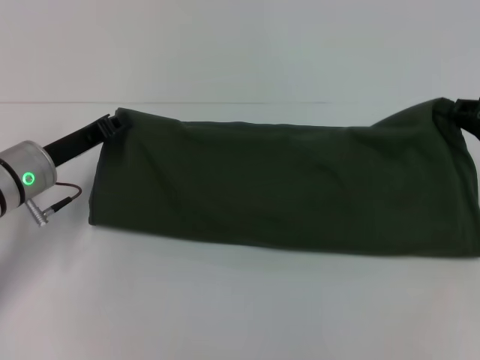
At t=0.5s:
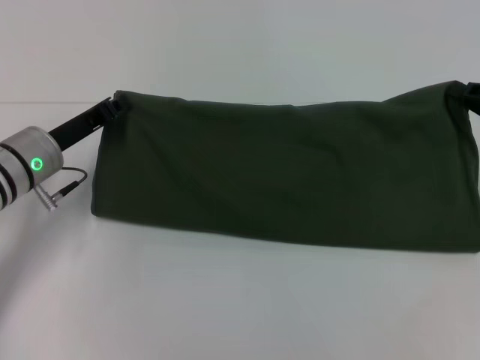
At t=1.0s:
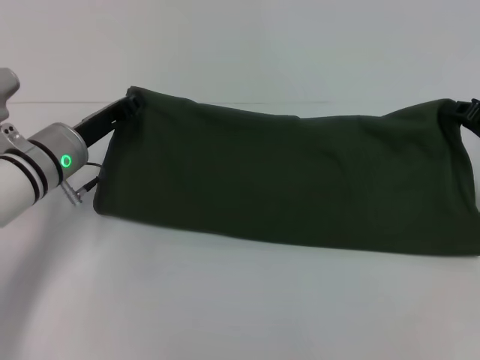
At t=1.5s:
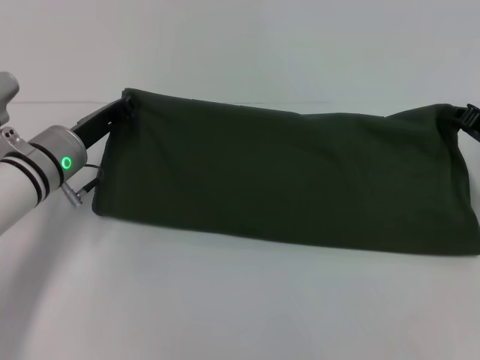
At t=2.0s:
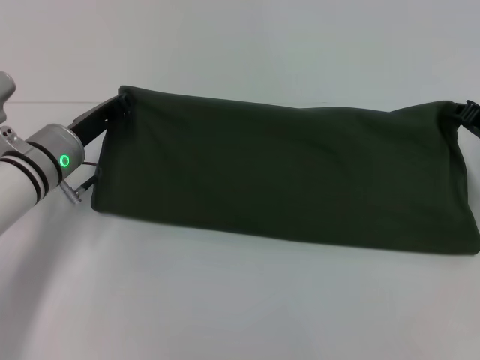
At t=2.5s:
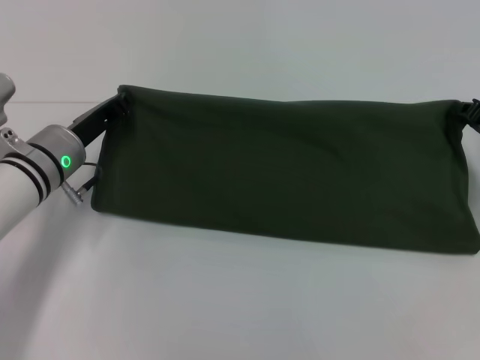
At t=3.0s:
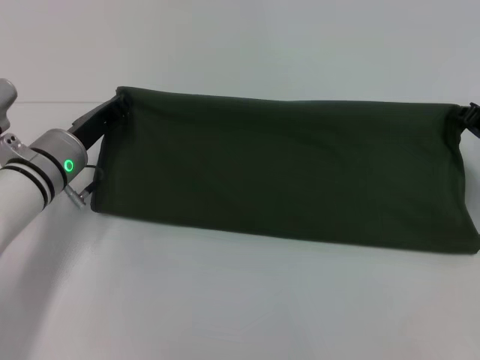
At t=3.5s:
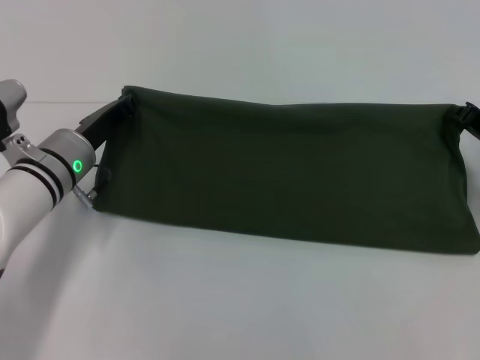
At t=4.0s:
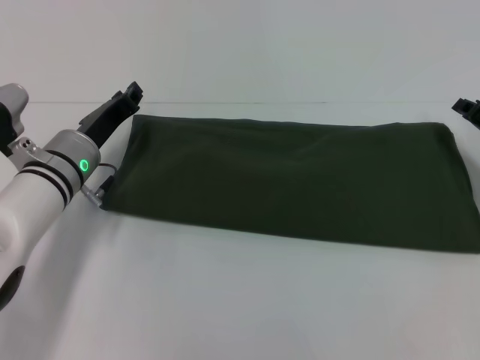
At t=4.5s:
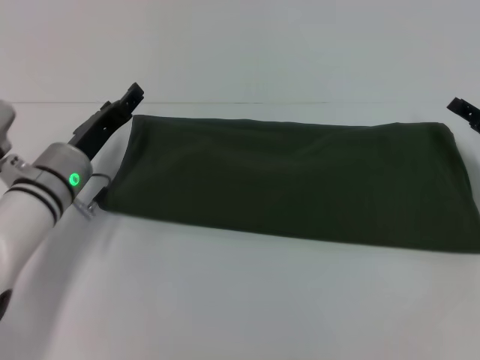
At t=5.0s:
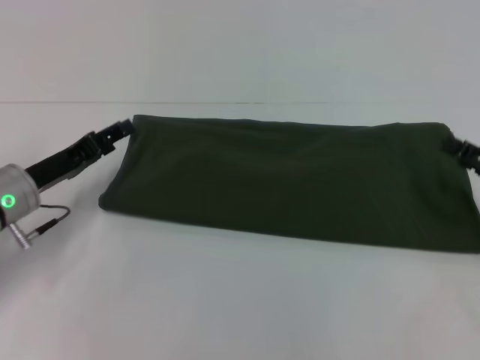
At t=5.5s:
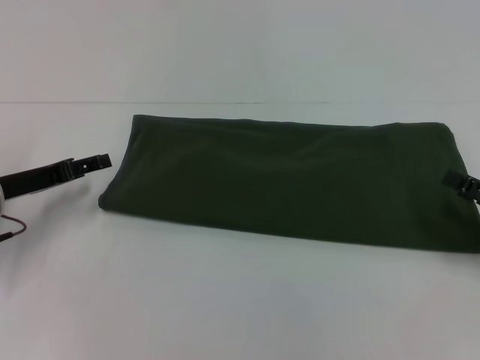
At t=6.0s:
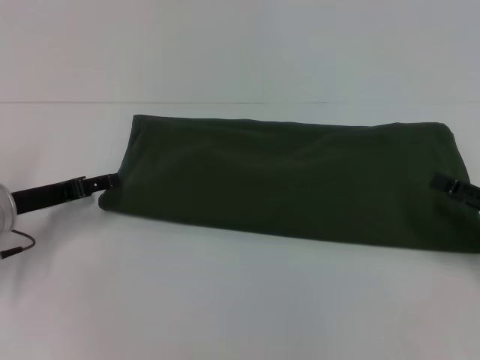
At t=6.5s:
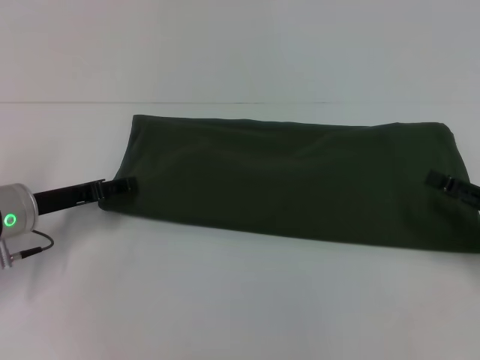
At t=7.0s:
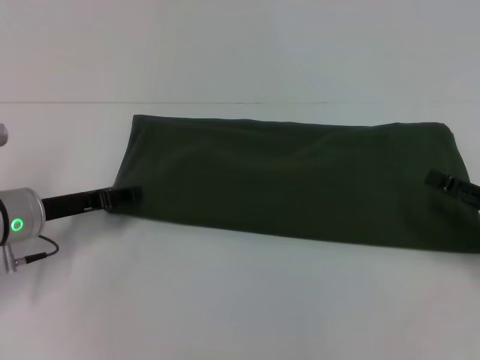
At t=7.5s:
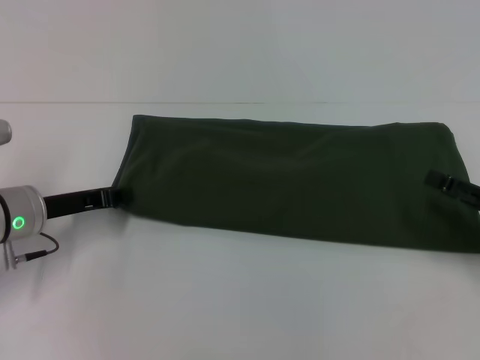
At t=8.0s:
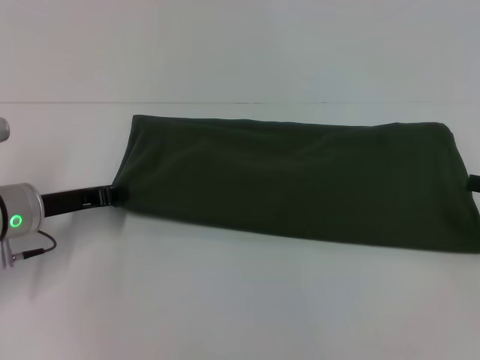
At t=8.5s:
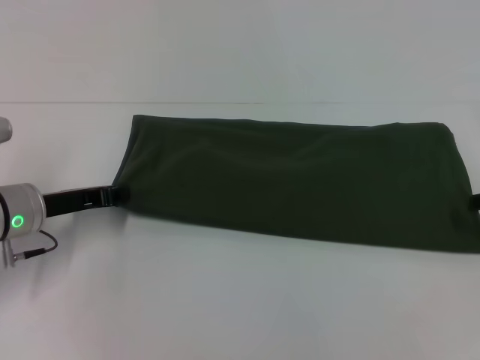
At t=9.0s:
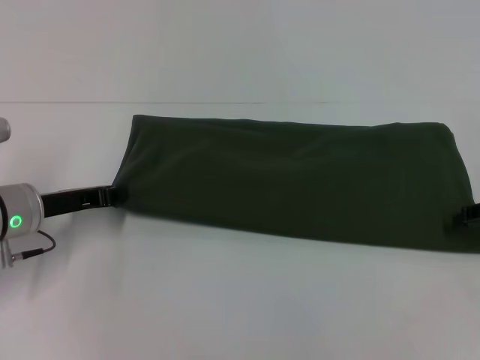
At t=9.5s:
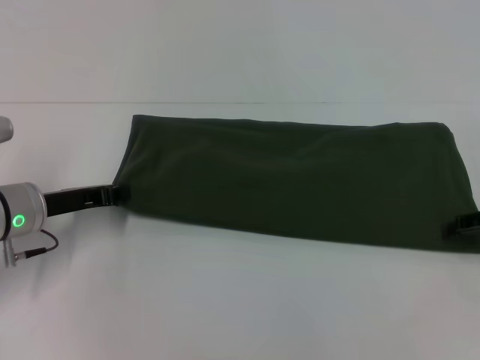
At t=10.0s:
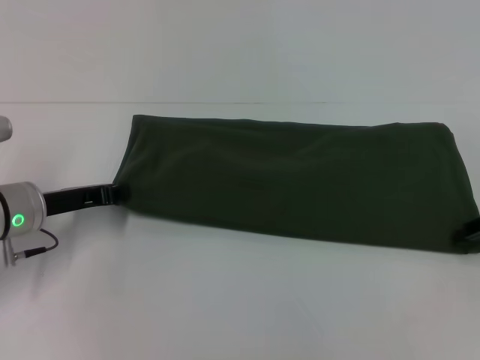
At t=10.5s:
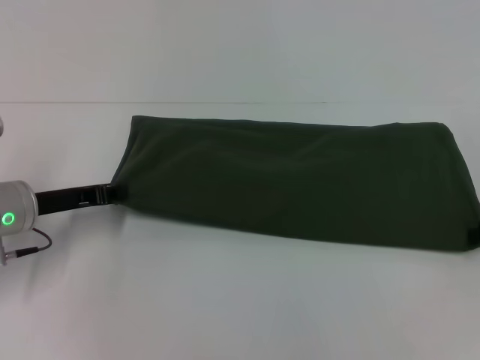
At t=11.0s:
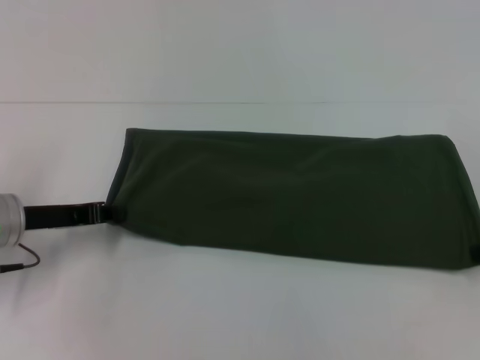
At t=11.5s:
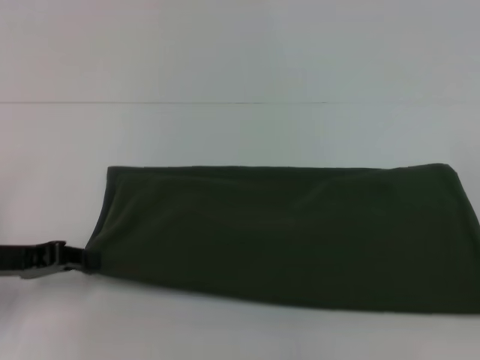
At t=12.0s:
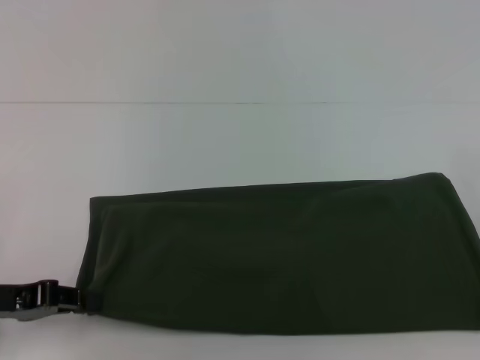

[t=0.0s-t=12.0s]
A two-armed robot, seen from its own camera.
Step, t=0.0s to t=4.0s: Fold the clothes with your right hand.
t=0.0s to t=2.0s: There are only small adjustments of the grippers.
t=2.0s to t=4.0s: There are only small adjustments of the grippers.
t=4.0s to t=6.0s: The right gripper goes about 10 cm backward, and opens its fingers. The left gripper shifts some 10 cm to the left, and opens.
t=6.0s to t=8.0s: The left gripper closes up.
t=10.0s to t=12.0s: The right gripper closes its fingers. The left gripper heads backward and to the left, covering approximately 10 cm.

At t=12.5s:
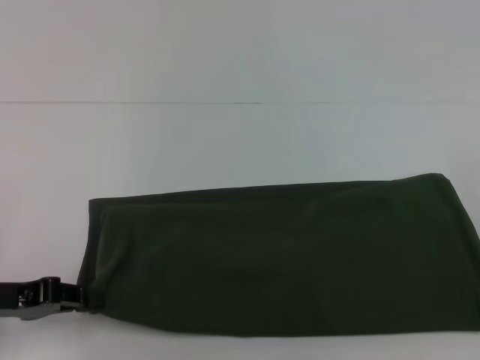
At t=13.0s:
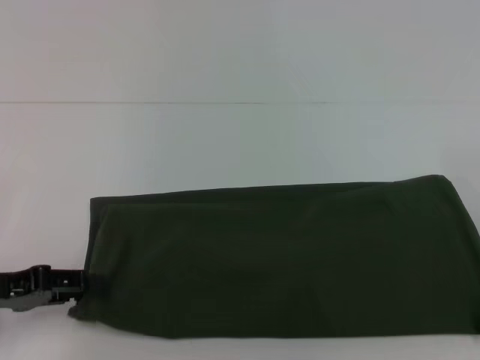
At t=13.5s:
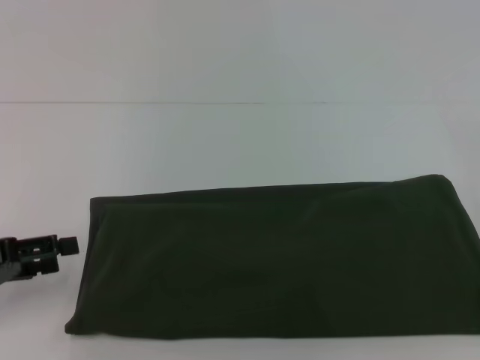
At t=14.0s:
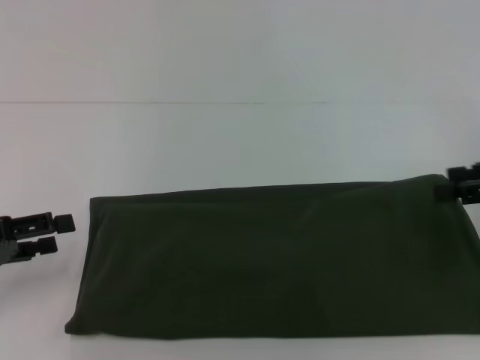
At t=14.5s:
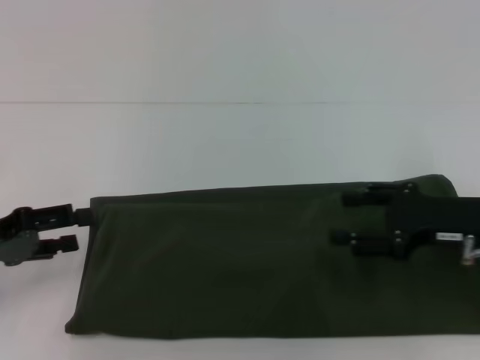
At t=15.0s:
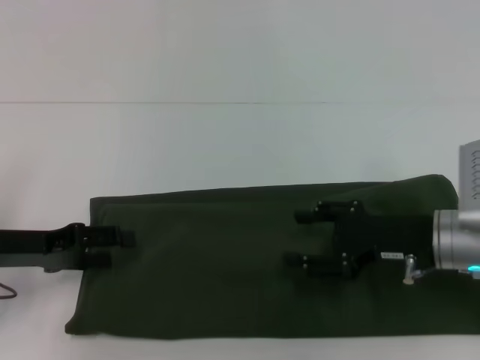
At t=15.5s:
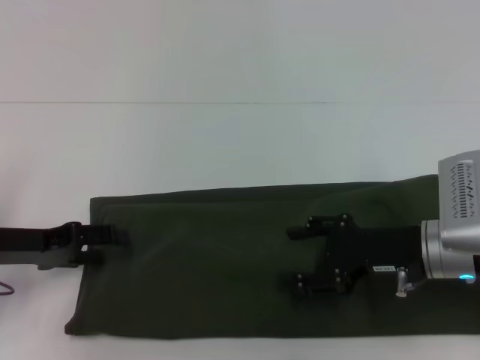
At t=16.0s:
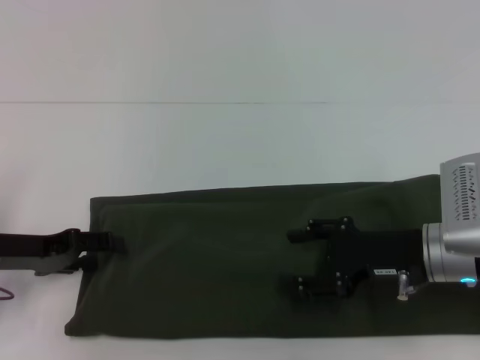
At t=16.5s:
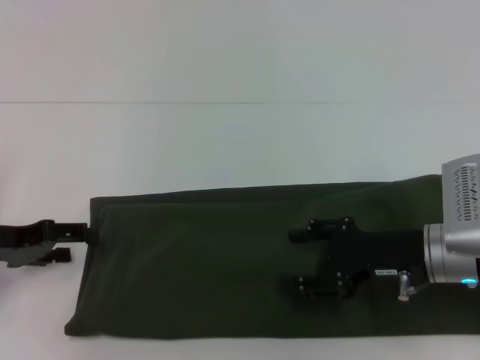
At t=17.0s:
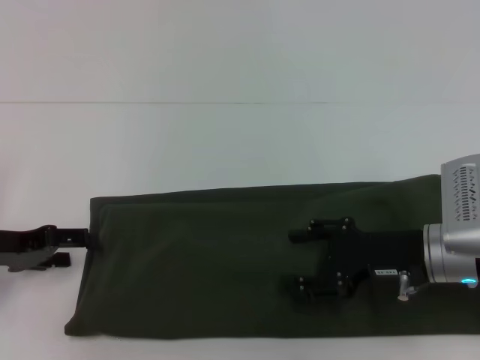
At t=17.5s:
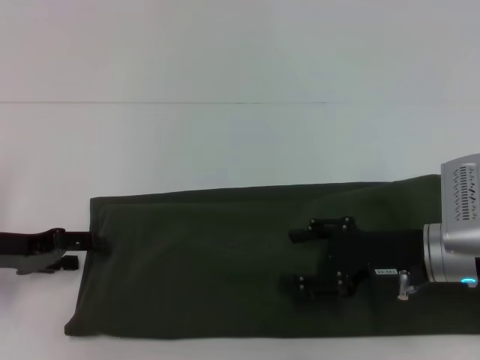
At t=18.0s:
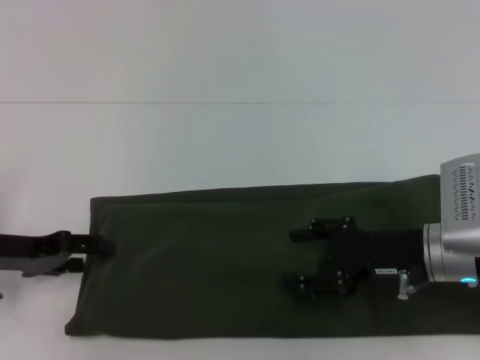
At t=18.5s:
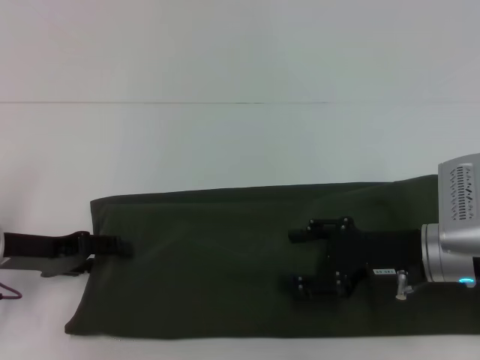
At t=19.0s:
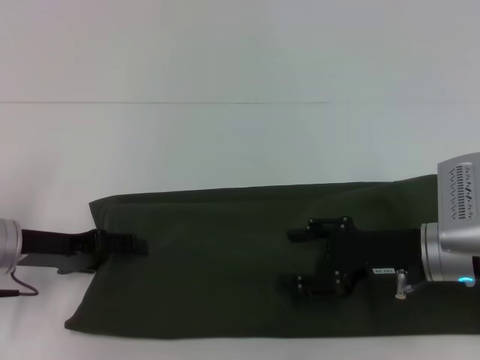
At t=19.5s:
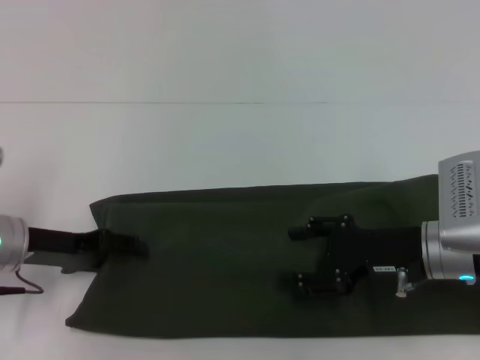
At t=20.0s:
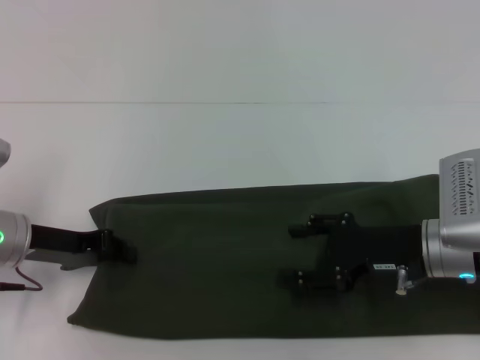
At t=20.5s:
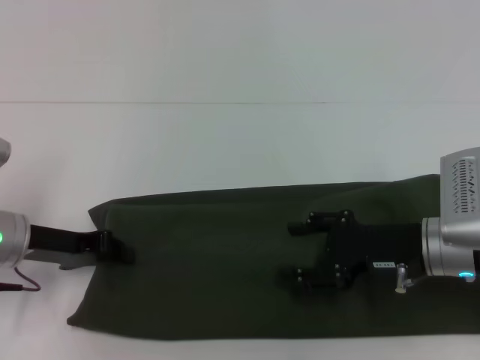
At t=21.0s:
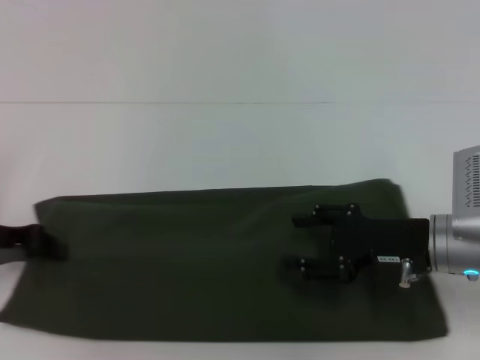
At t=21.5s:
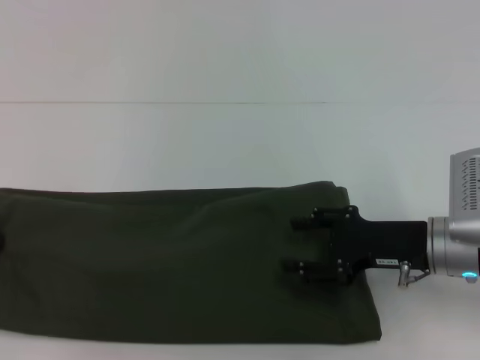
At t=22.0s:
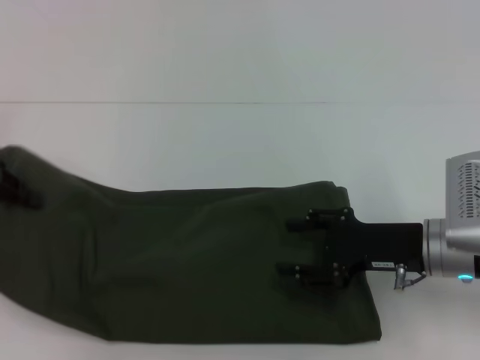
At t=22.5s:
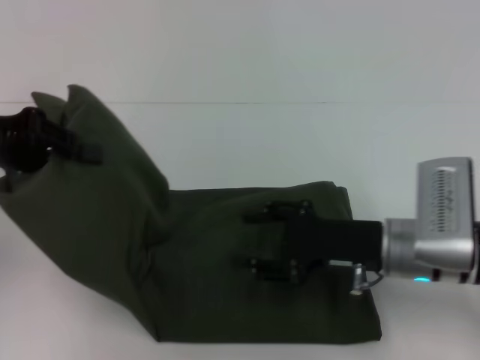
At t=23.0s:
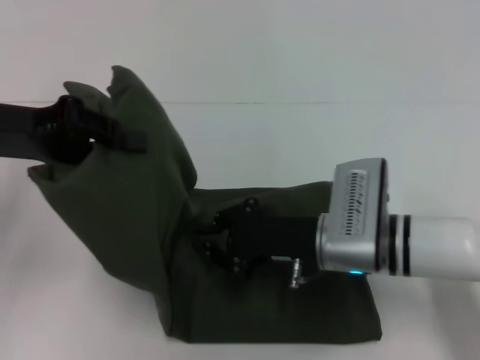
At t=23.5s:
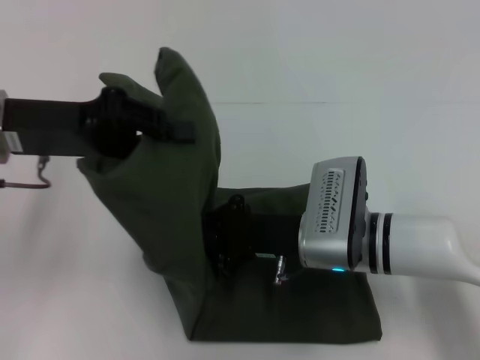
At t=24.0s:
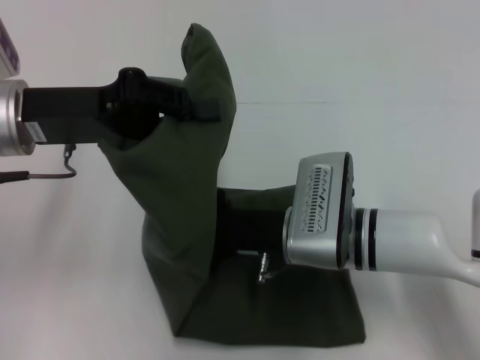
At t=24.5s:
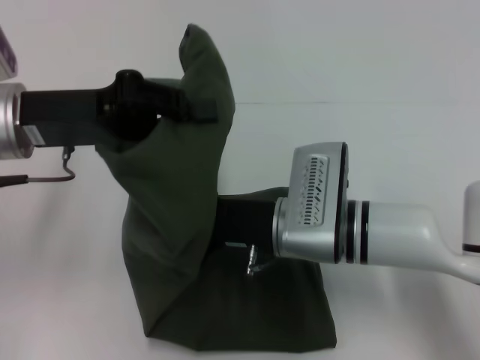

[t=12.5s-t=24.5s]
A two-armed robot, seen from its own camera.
t=12.5s to t=14.5s: The left gripper opens its fingers; the right gripper is displaced to the left by approximately 10 cm, and opens up.
t=14.5s to t=16.5s: The right gripper goes about 5 cm to the left.
t=16.5s to t=18.5s: The grippers make only small movements.
t=18.5s to t=20.5s: The left gripper closes up.
t=20.5s to t=22.5s: The left gripper shifts about 15 cm upward.
t=22.5s to t=24.5s: The right gripper moves to the left, some 10 cm, and closes up. The left gripper heads to the right, covering approximately 10 cm.

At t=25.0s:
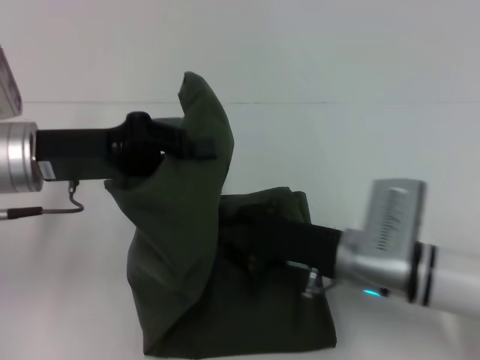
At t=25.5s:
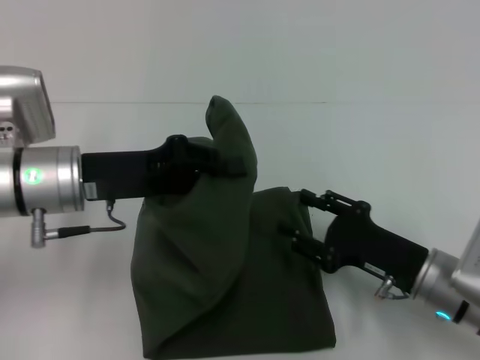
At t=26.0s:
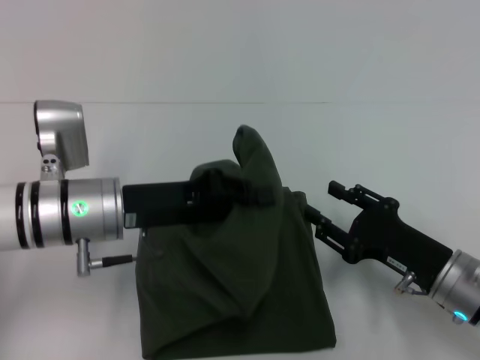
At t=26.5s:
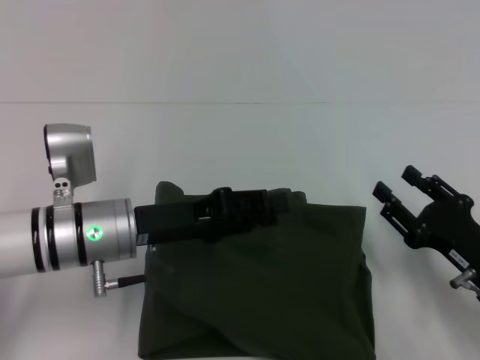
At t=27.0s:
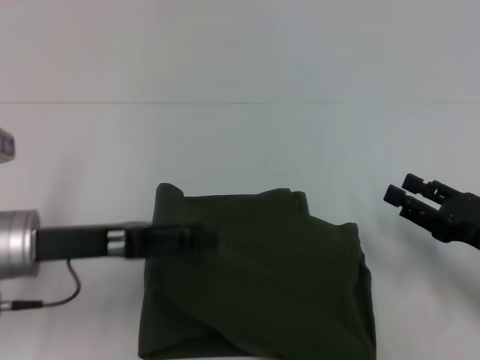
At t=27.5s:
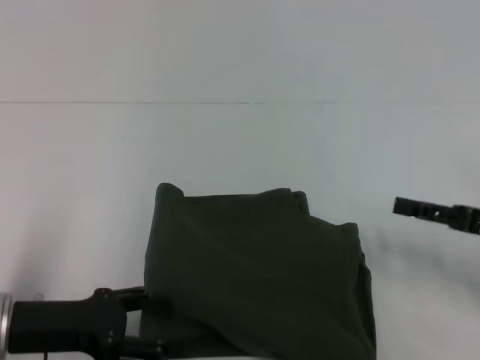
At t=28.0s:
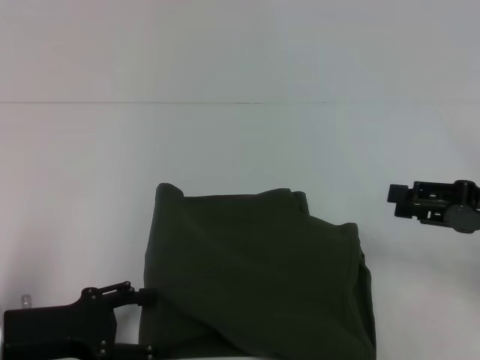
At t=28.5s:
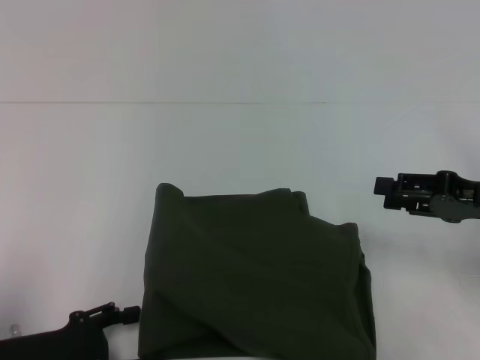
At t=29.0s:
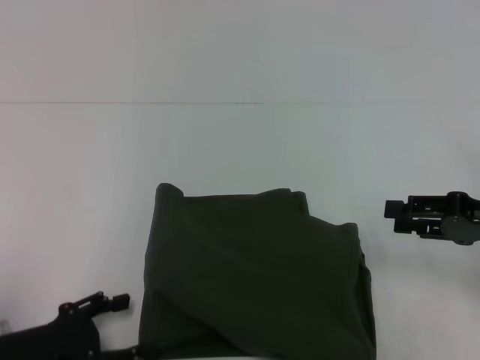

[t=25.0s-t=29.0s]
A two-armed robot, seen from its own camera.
Step, t=25.0s to t=27.0s: Fold the clothes with your left hand.
t=25.0s to t=27.0s: The right gripper moves to the right, about 15 cm, and opens. The left gripper goes approximately 5 cm downward, and opens up.
t=27.0s to t=29.0s: The left gripper heads backward and downward, covering about 15 cm; the right gripper moves upward, roughly 5 cm.
